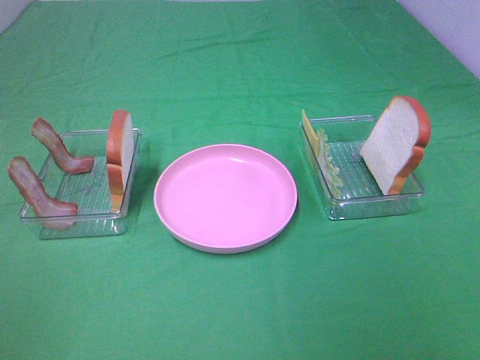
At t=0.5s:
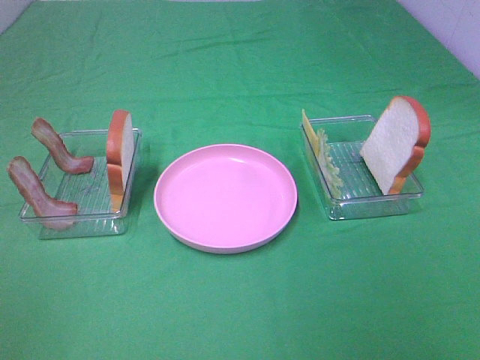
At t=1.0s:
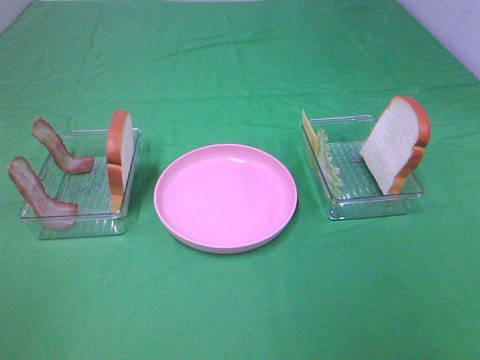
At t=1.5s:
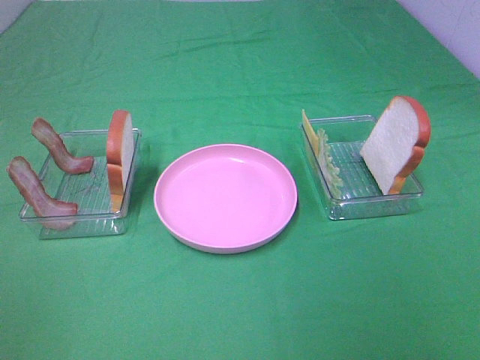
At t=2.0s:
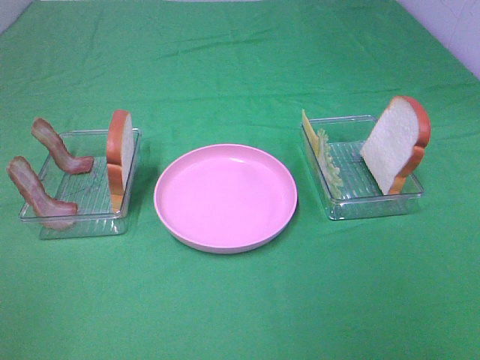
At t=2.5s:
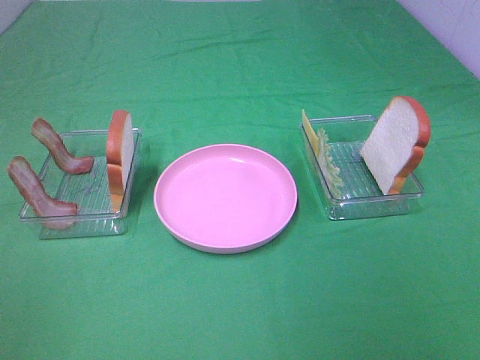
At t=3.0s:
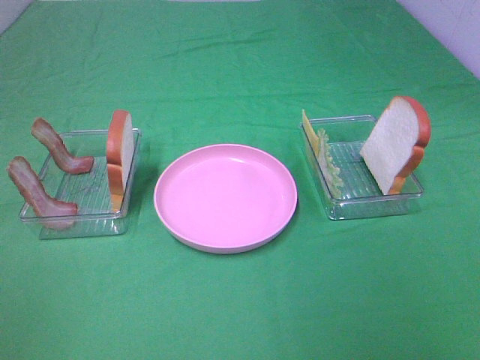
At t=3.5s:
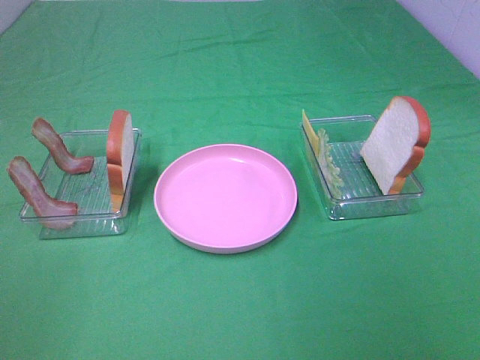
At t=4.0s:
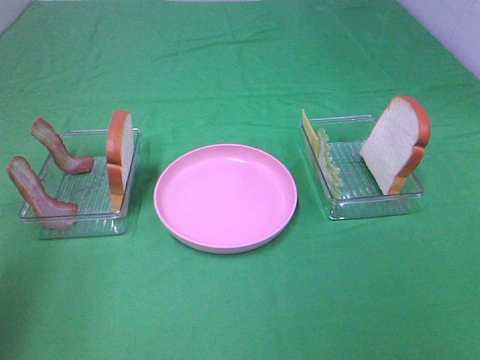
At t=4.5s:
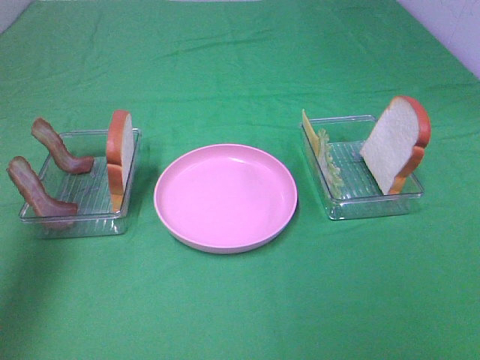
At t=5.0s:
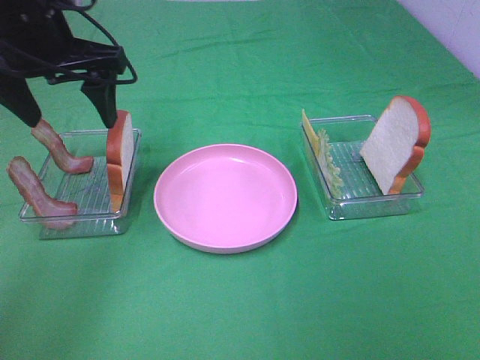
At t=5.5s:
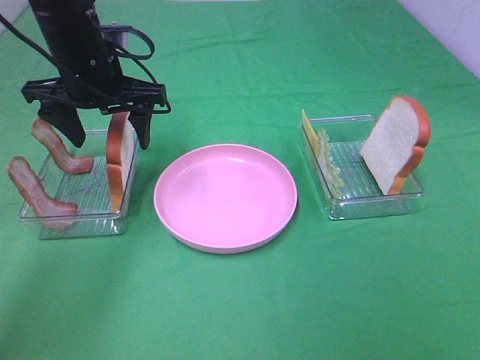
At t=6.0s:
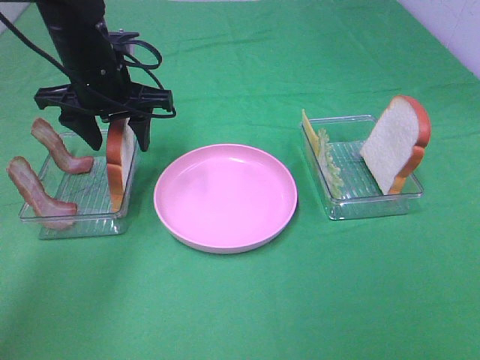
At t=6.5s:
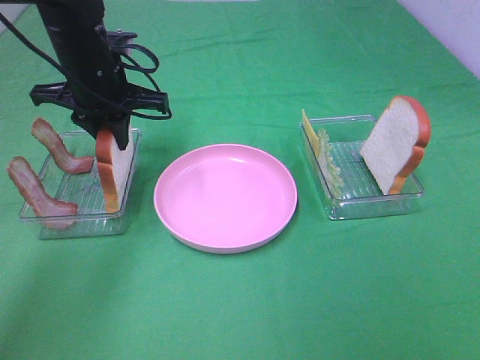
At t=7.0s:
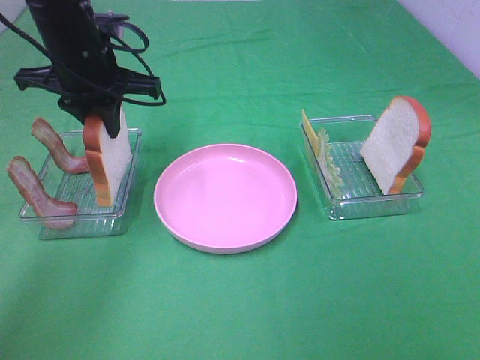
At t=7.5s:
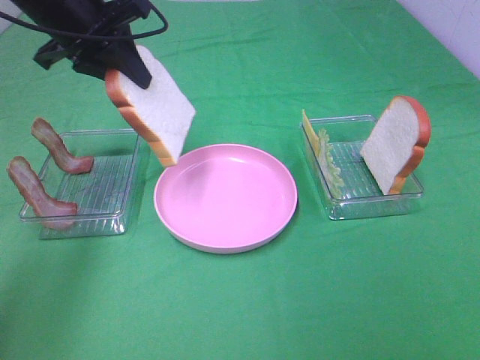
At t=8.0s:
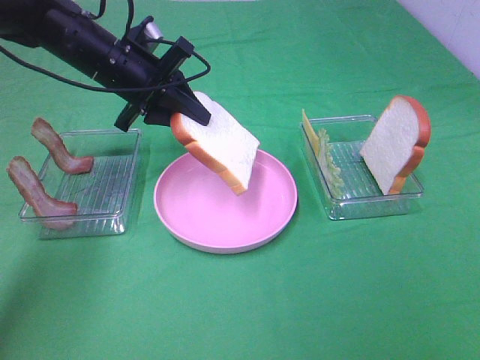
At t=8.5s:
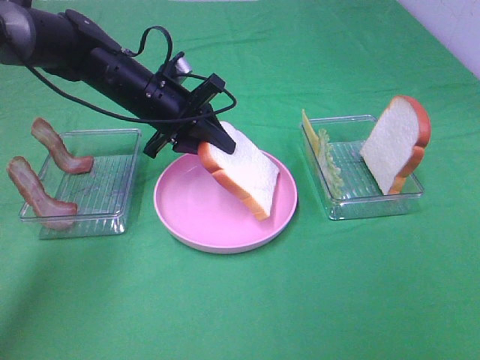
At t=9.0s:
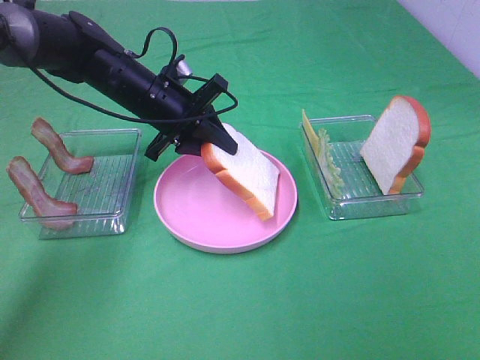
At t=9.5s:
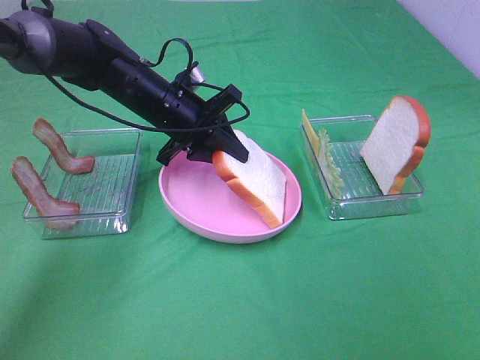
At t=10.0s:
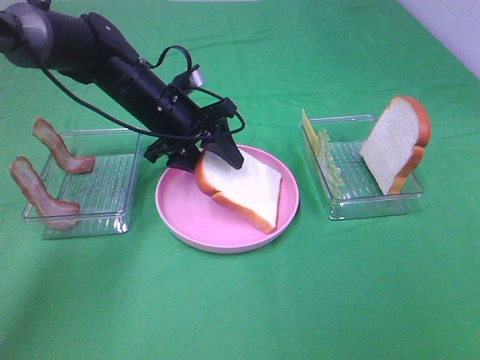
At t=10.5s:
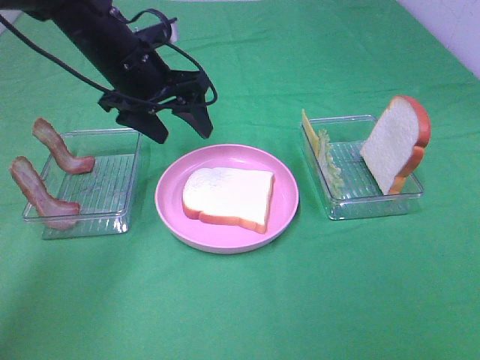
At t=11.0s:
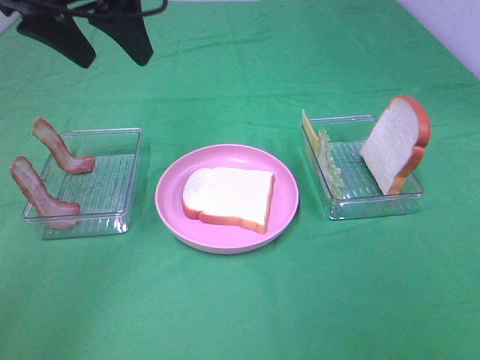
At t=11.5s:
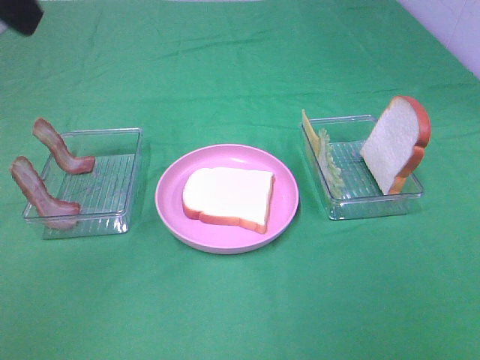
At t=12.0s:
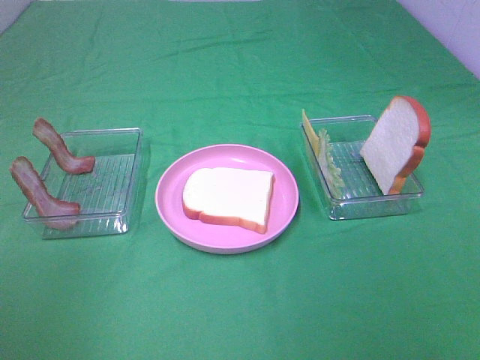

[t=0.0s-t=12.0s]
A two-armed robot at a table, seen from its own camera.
Task of the whole recording: Make sandwiches.
Step, t=0.0s to t=6.5s: Left hand:grab the bread slice.
Step, t=7.0s to t=10.0s: Left hand:place the bread slice on the plate.
t=0.0s to t=2.0s: The two grippers keep their place.
t=2.0s to t=4.0s: The left gripper shifts approximately 15 cm forward and upward.
t=4.0s to t=6.0s: The left gripper shifts approximately 35 cm forward, downward and to the right.
t=6.0s to t=8.0s: The left gripper goes upward and returns, approximately 5 cm each way, and closes up.
t=8.0s to t=10.0s: The left gripper changes place by approximately 5 cm, and opens its fingers.
t=10.0s to t=12.0s: The left gripper goes about 40 cm backward, upward and to the left.

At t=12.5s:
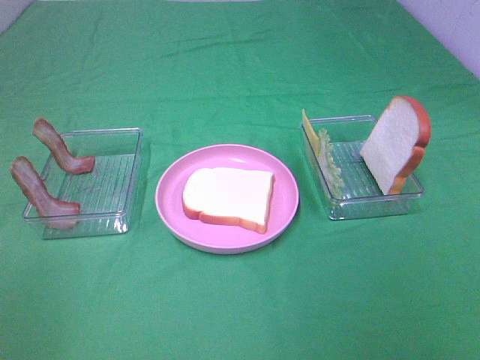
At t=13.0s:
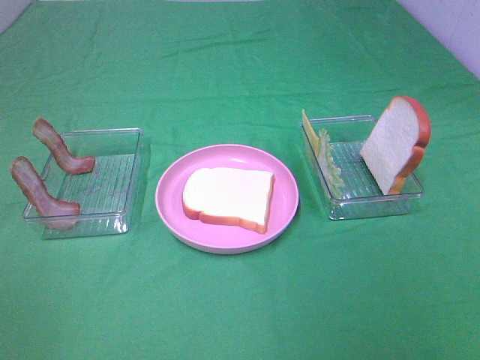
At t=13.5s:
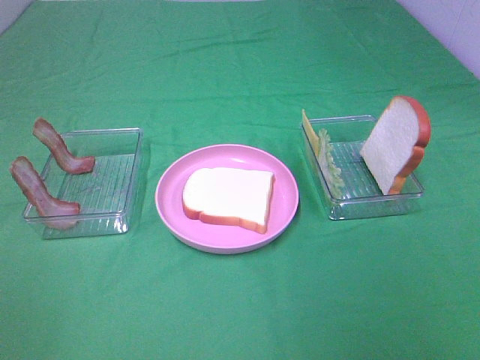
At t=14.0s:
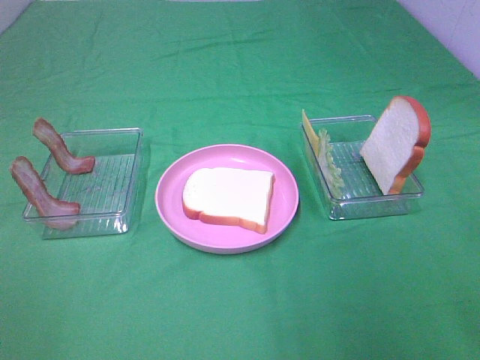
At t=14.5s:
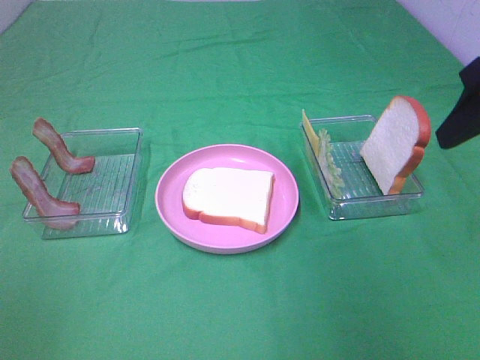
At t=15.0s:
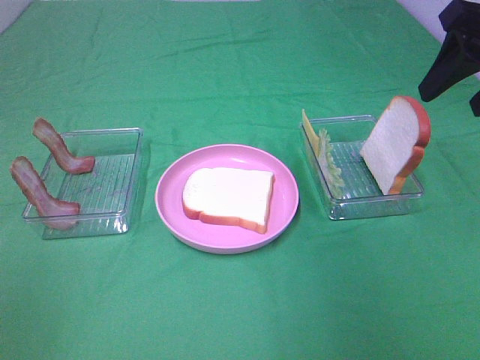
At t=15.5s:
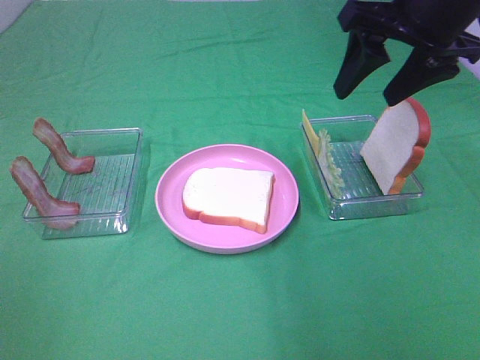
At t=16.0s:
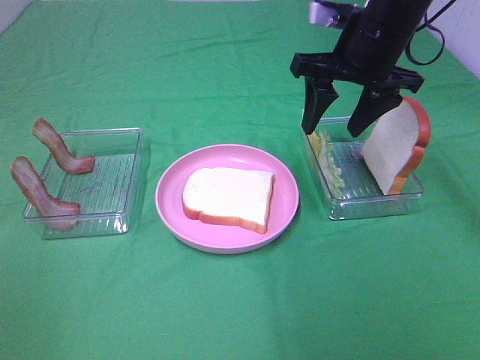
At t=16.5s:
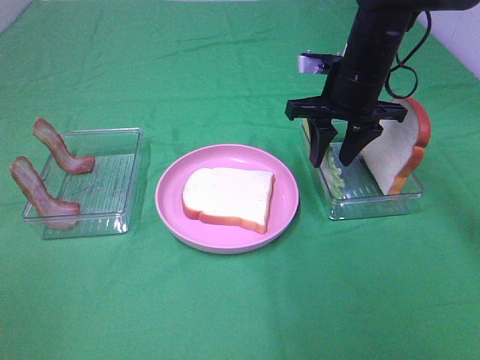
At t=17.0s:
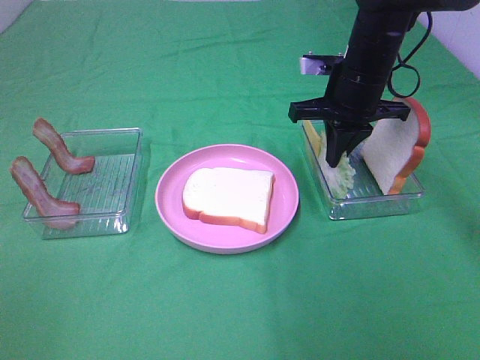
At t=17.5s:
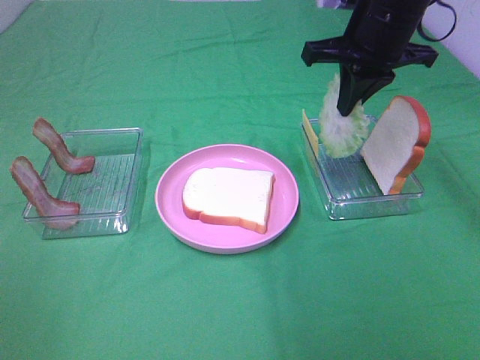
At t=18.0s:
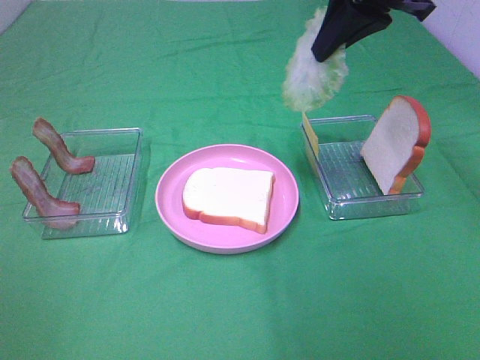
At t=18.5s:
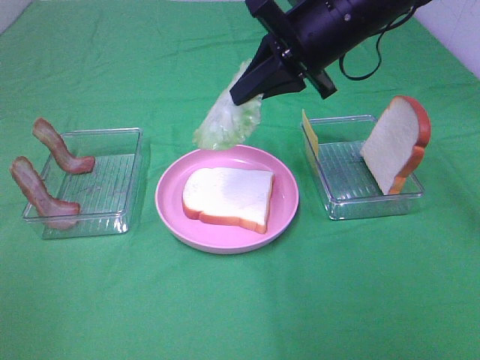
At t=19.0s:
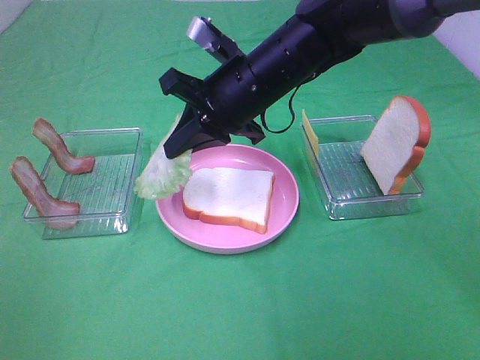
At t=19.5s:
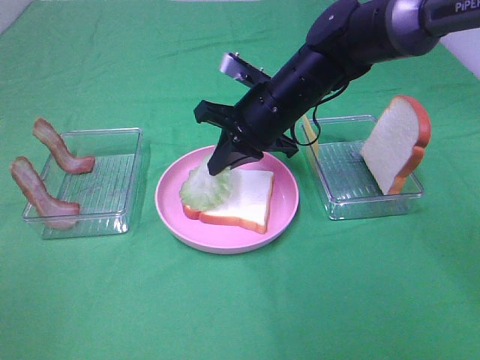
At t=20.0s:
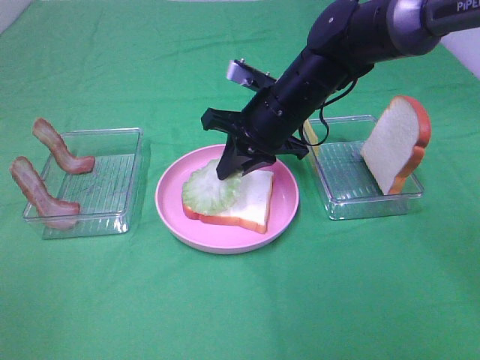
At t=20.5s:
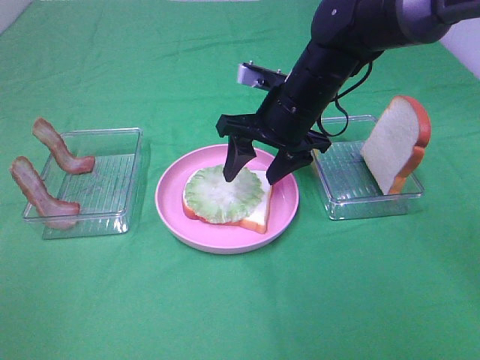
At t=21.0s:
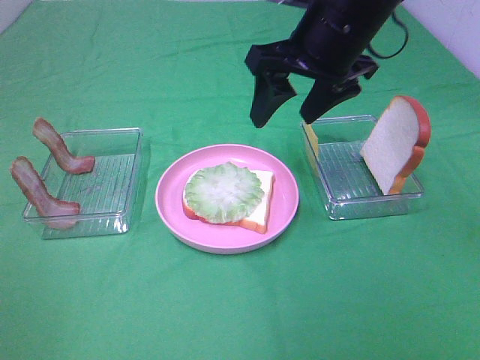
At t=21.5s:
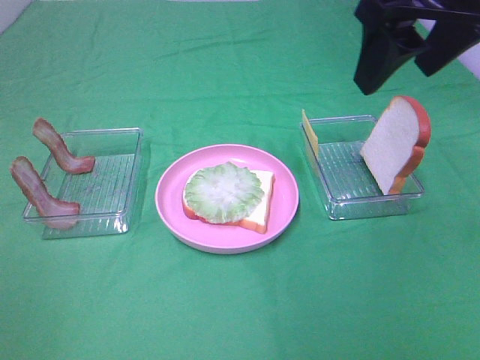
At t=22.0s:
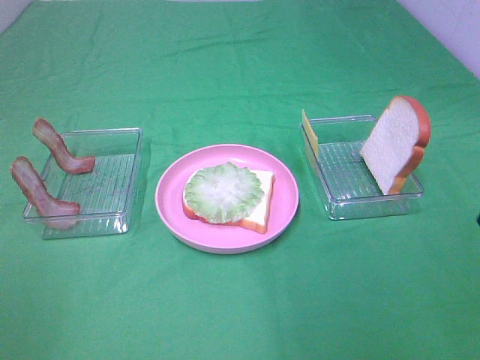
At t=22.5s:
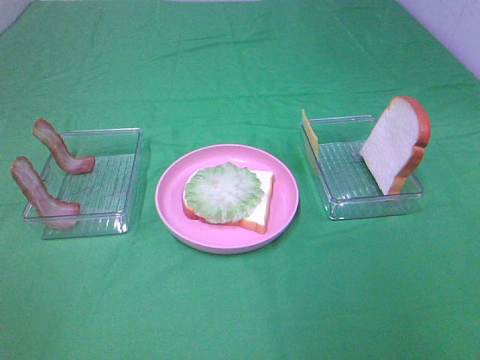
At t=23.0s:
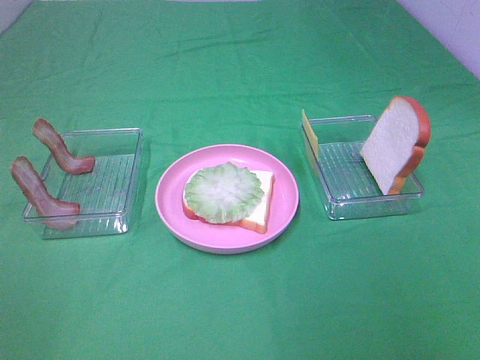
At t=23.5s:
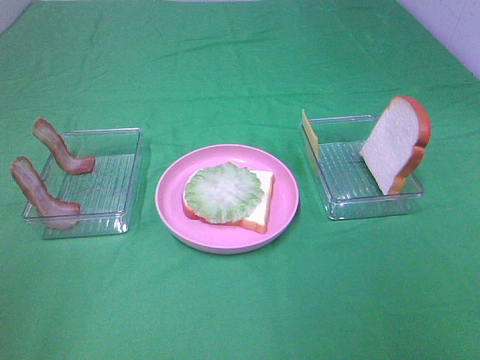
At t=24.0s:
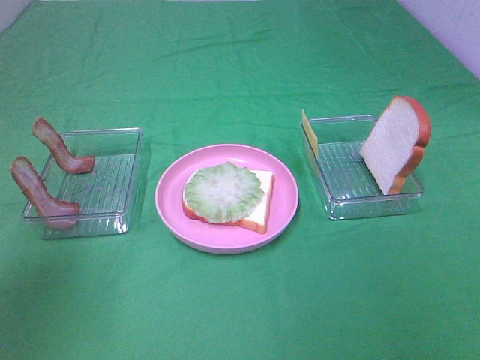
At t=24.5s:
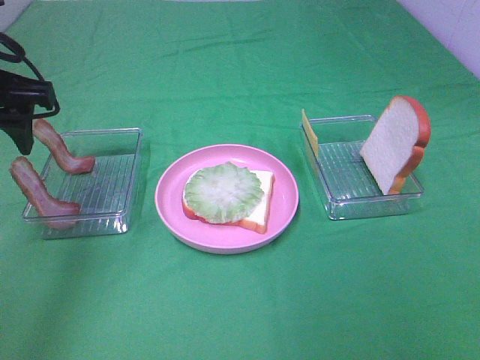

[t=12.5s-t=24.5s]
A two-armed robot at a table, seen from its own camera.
Task of the whole recording: Make sandwiches.
Step, t=12.5s to t=16.5s: Right hand:grab the lettuce slice.
Step, t=17.0s to t=20.5s: Right hand:place the lettuce slice on the bread slice.
t=12.5s to t=14.5s: The right gripper travels forward by some 25 cm.
t=14.5s to t=16.5s: The right gripper heads forward, to the left and downward, covering roughly 25 cm.
t=16.5s to t=18.5s: The right gripper shifts about 10 cm upward, and closes up.
t=18.5s to t=20.5s: The right gripper heads downward, covering some 10 cm, and opens up.
t=20.5s to t=22.5s: The right gripper moves backward and to the right, about 40 cm.
t=22.5s to t=24.5s: The left gripper goes approximately 30 cm forward.

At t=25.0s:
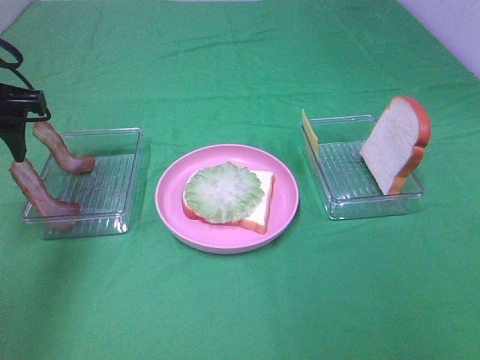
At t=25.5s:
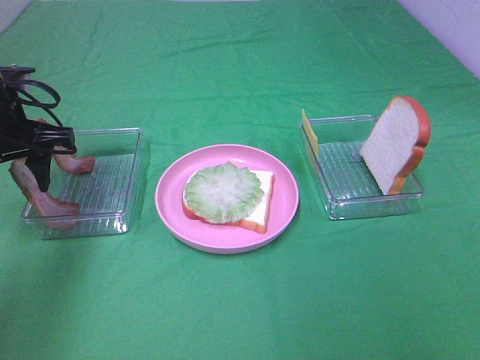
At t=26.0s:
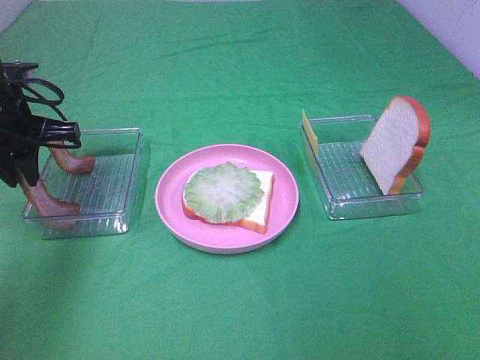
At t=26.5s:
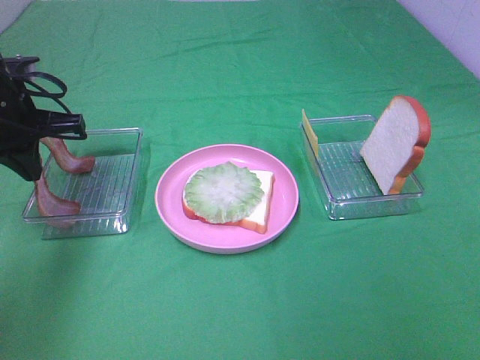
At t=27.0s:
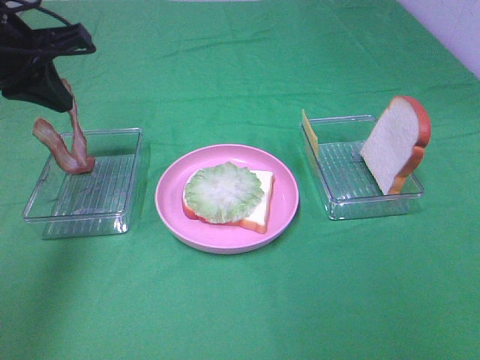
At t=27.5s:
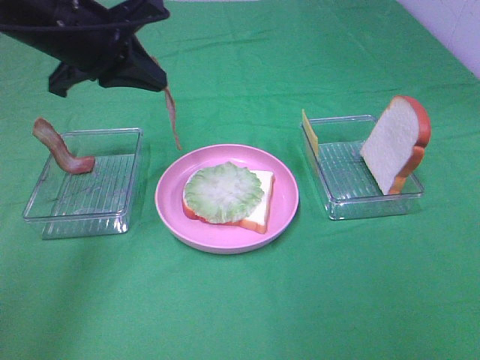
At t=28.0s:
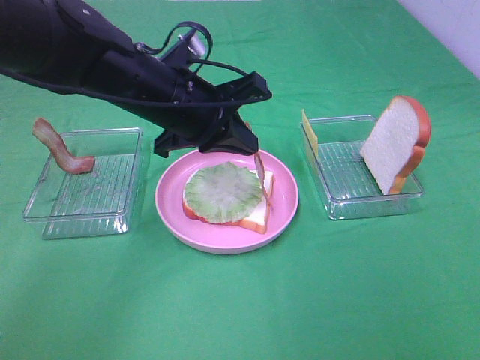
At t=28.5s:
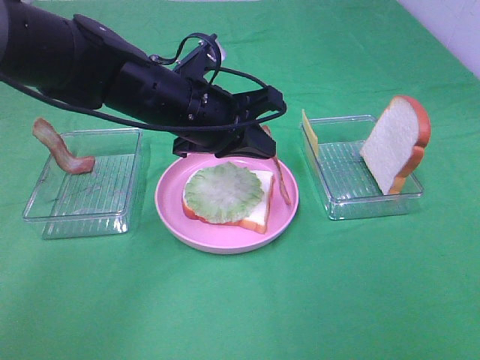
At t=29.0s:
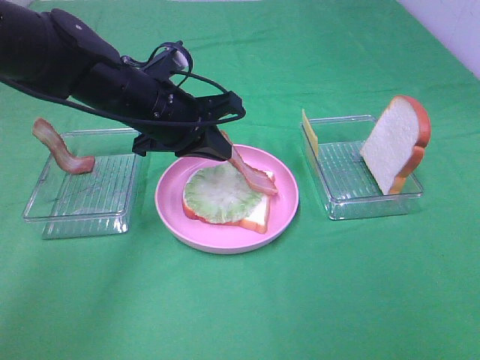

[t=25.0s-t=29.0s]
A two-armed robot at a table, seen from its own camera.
Task of the whole recording: Make sandwiches.
t=25.0s to t=27.0s: The left gripper goes downward and returns, roughly 5 cm each way, and closes its fingers.
t=27.0s to t=29.0s: The left gripper travels to the right and downward by roughly 15 cm.
